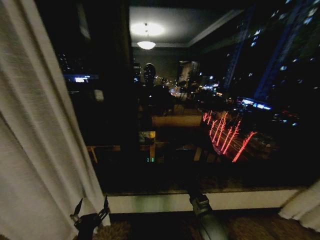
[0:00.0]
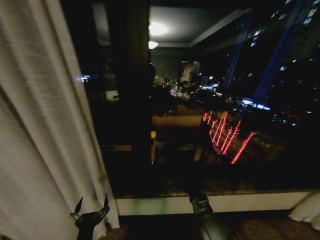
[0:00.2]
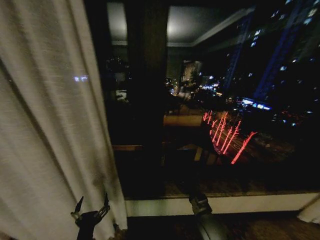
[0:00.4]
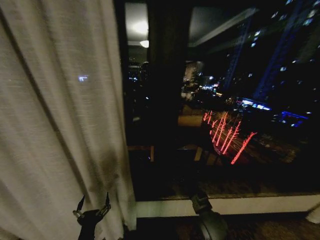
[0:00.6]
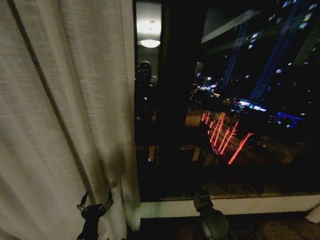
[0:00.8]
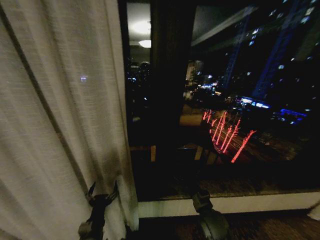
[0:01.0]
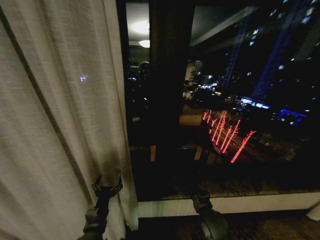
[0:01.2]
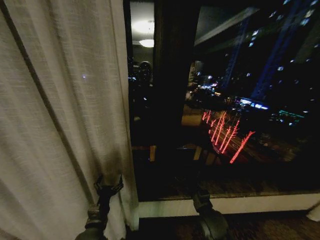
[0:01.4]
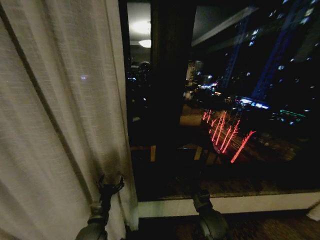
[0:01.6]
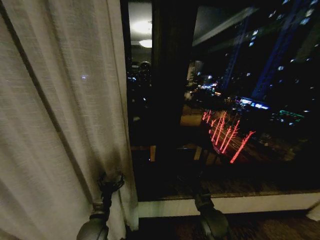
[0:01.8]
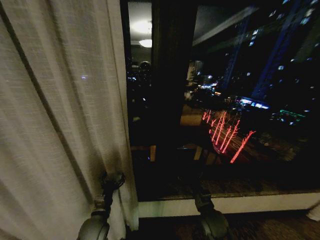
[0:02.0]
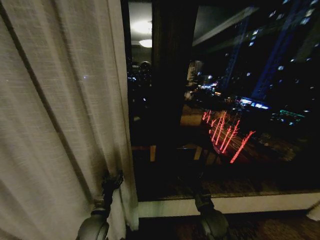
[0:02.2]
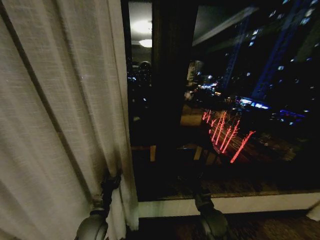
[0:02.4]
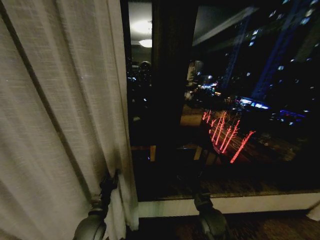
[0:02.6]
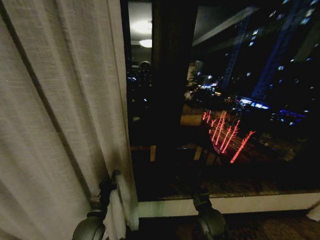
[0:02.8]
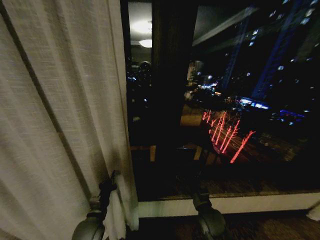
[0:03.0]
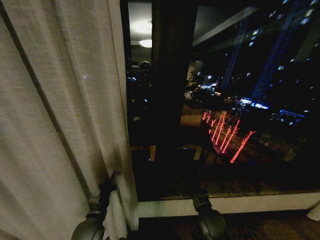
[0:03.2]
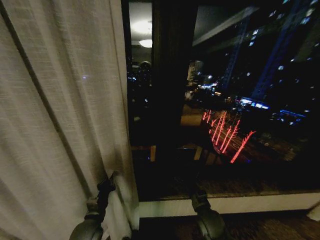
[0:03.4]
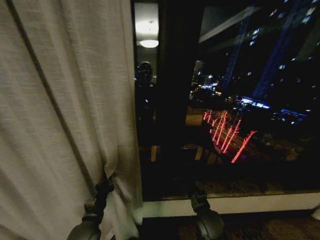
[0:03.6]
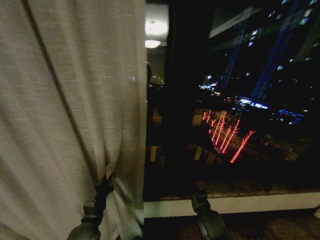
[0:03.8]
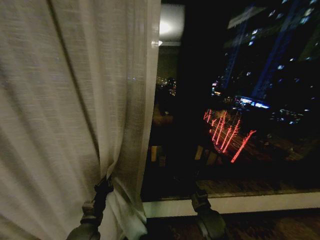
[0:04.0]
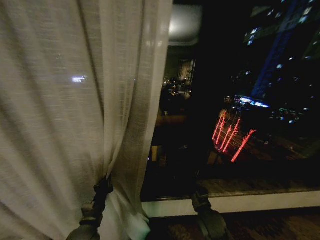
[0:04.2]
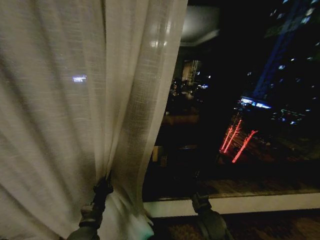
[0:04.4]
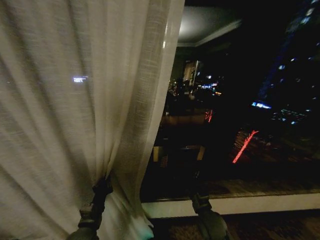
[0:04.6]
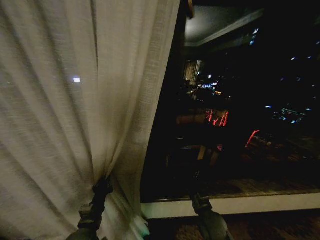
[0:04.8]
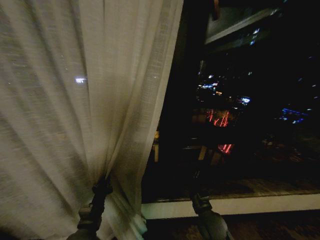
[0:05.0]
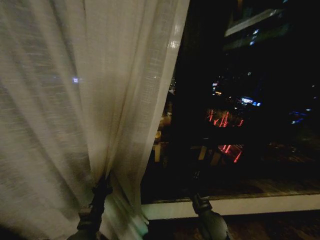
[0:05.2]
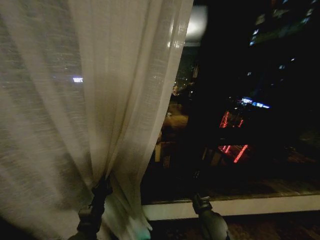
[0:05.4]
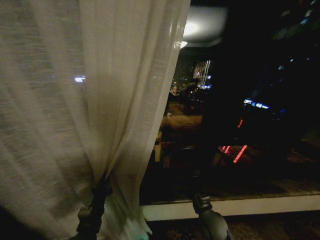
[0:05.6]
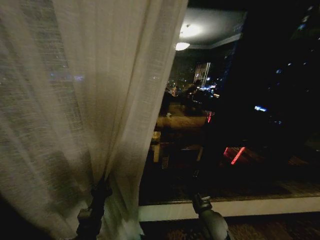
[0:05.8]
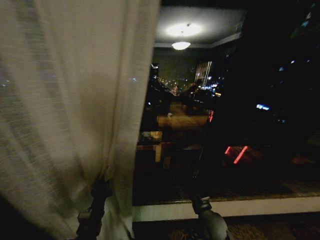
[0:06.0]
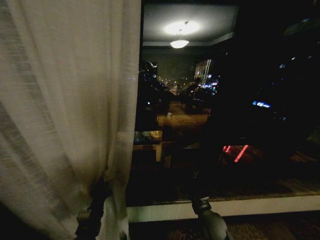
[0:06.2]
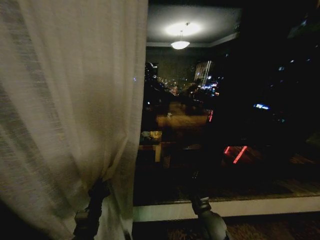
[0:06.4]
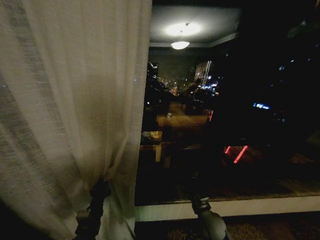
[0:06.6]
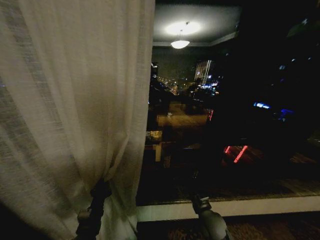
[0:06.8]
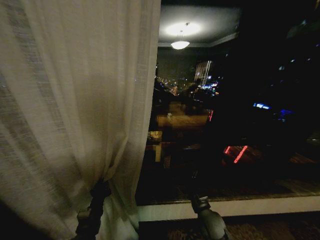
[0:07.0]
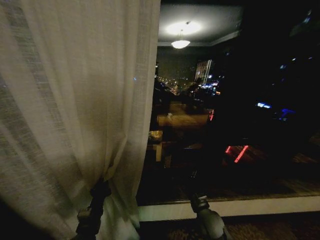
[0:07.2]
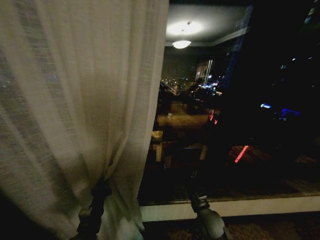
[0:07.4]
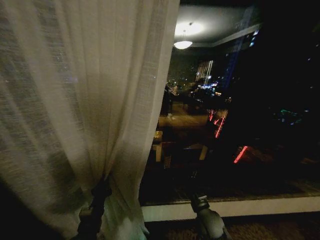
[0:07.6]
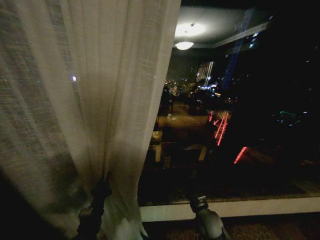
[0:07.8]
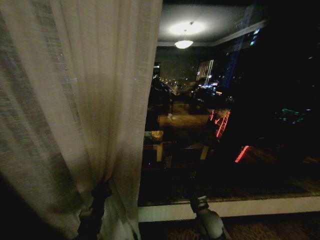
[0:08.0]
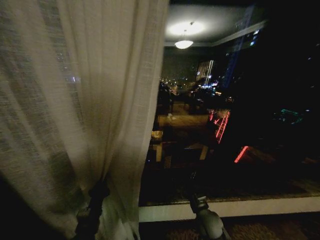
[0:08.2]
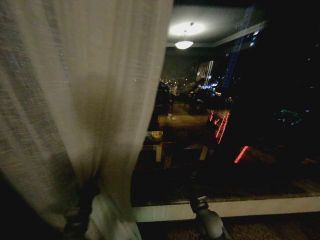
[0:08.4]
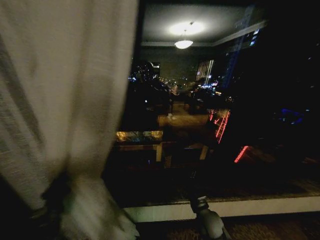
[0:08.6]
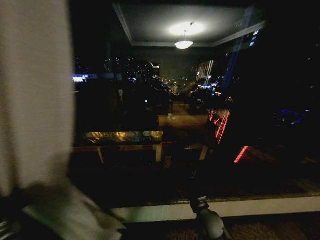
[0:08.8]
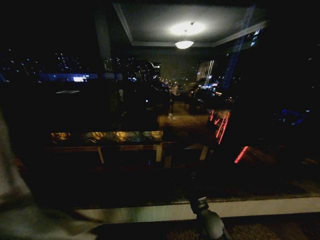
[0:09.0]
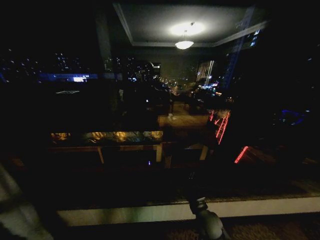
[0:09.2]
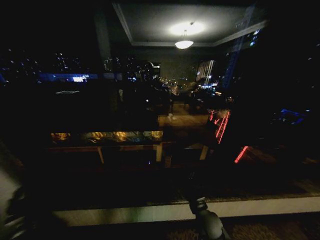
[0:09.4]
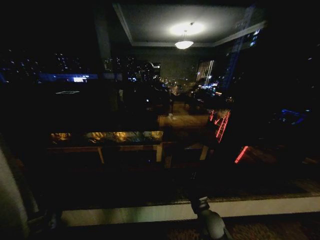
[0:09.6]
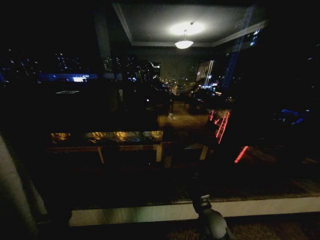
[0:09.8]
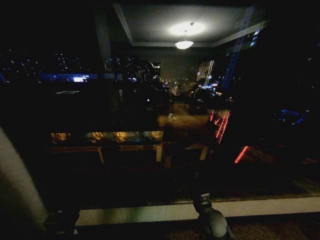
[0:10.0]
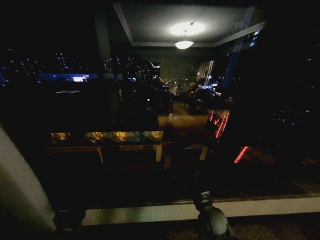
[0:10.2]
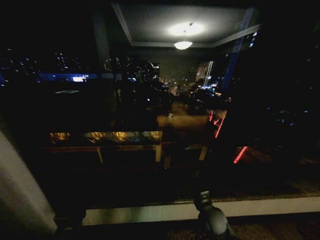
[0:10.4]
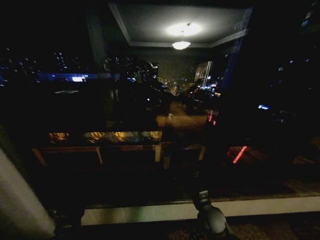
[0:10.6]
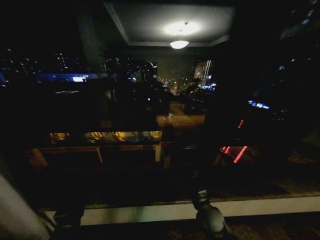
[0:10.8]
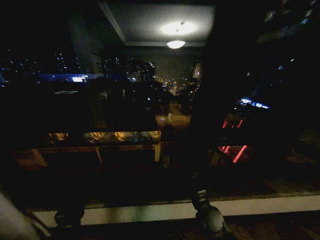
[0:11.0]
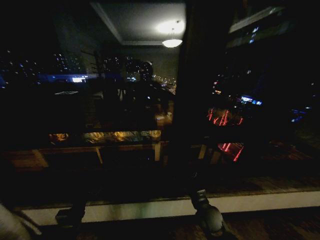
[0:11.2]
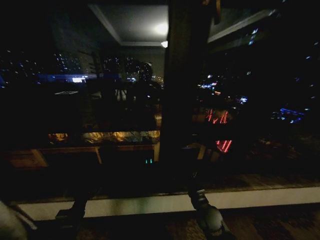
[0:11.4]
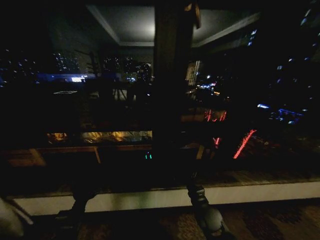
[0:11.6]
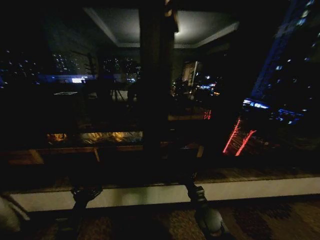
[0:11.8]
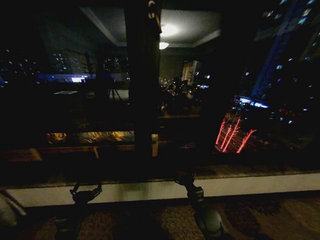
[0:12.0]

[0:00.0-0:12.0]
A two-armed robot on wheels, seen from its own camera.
Task of the whole recording: Open the curtains by pulling them apart, changing their state from closed to fully open.
0:00.0 to 0:01.6: The left gripper shifts about 15 cm forward.
0:01.6 to 0:03.0: The left gripper closes.
0:06.0 to 0:07.6: There are only small adjustments of the grippers.
0:07.6 to 0:09.0: The left gripper heads to the left, covering roughly 25 cm.
0:09.0 to 0:10.4: The left gripper travels to the right by about 20 cm, and opens up.

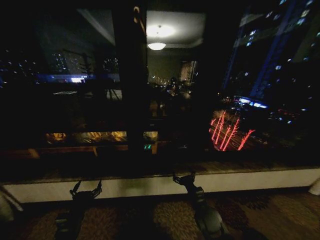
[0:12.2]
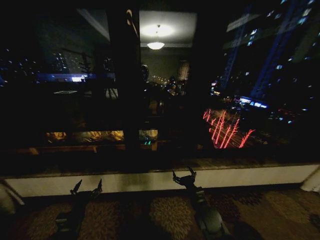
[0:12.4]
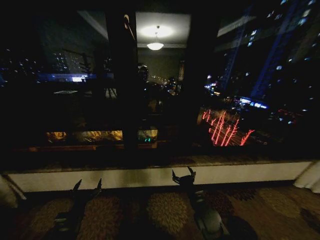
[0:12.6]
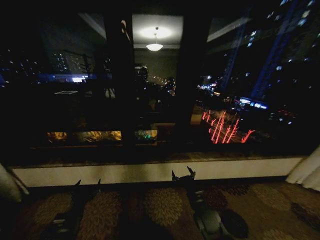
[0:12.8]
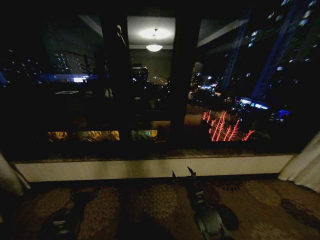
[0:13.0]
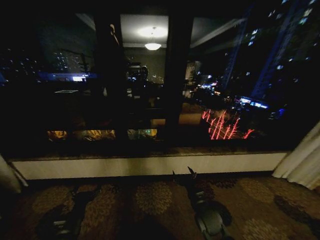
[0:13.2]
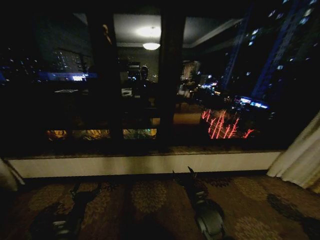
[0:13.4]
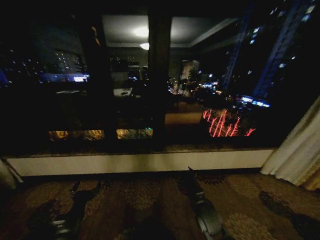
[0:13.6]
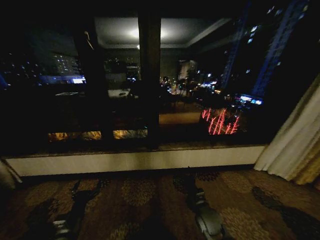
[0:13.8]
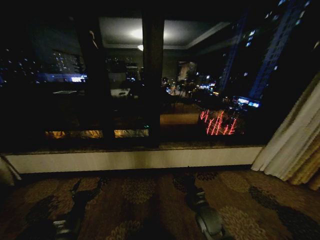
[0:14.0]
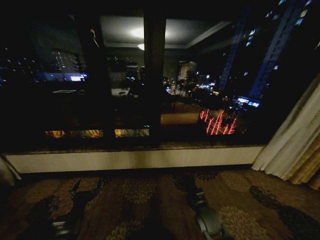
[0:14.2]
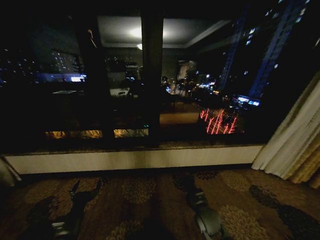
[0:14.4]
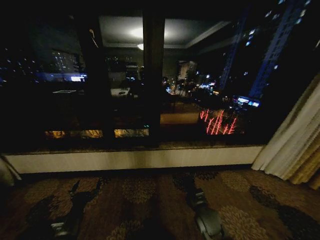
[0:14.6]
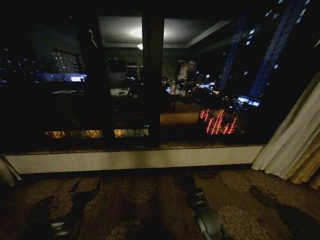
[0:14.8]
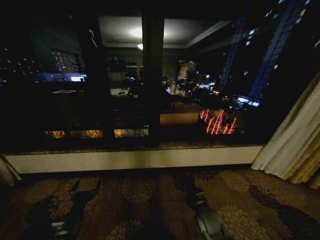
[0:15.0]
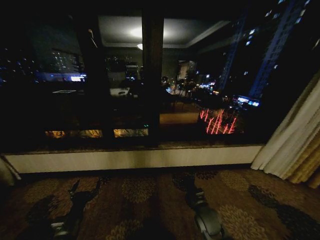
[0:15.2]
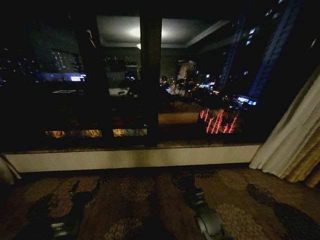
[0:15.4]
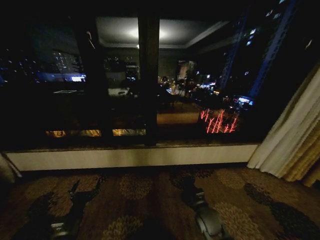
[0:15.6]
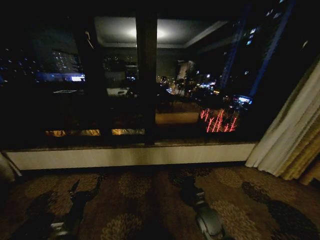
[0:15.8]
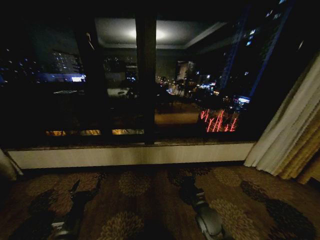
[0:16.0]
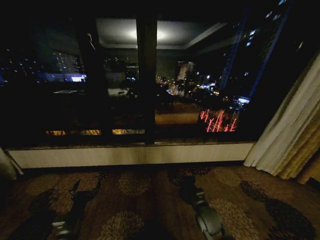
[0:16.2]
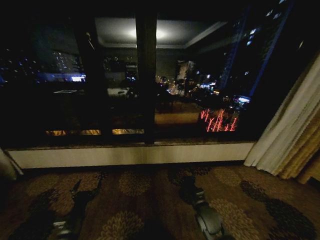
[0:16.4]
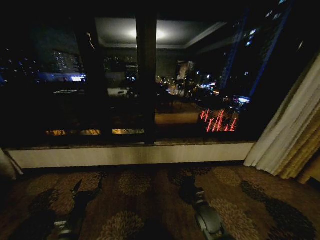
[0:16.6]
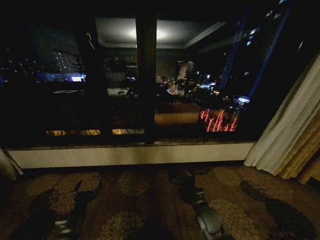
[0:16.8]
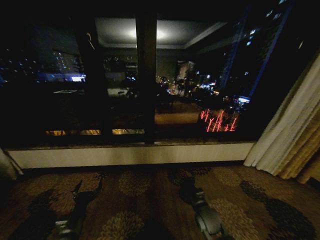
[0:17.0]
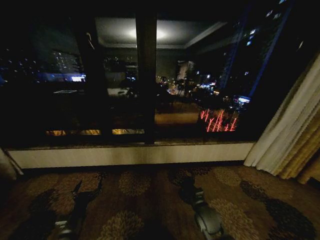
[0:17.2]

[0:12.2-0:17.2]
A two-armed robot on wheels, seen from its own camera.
Task of the whole recording: Open the curtains by pulling them apart, changing their state from closed to fully open.
0:13.8 to 0:17.2: Neither gripper changes place.
